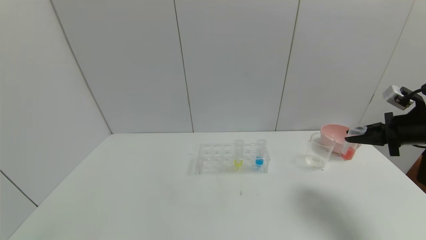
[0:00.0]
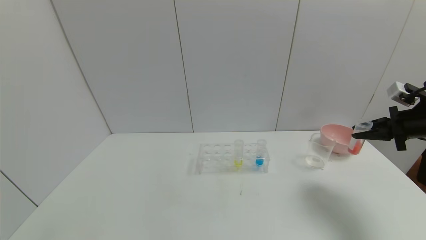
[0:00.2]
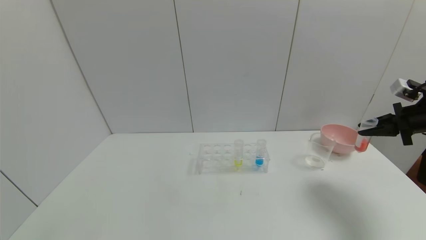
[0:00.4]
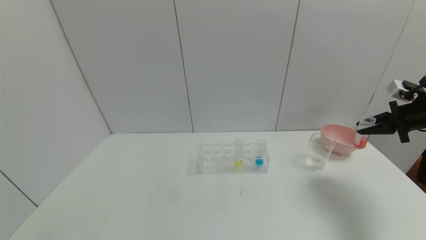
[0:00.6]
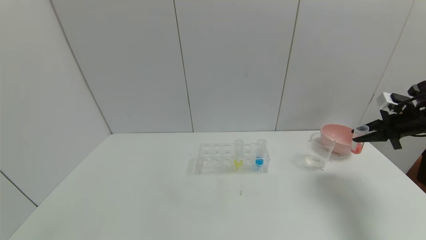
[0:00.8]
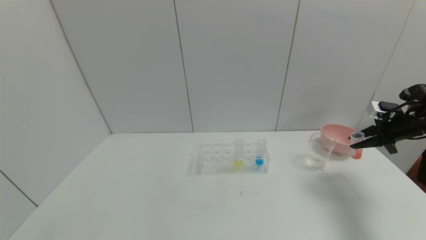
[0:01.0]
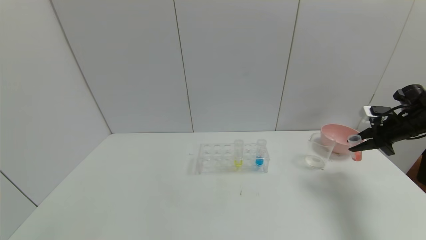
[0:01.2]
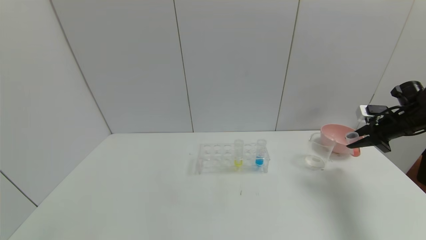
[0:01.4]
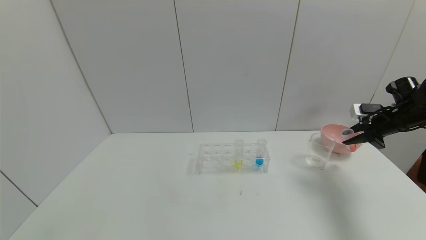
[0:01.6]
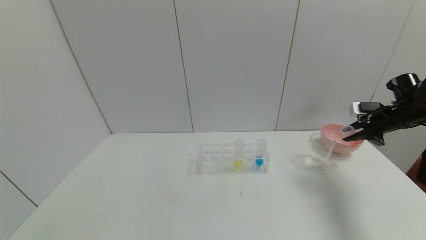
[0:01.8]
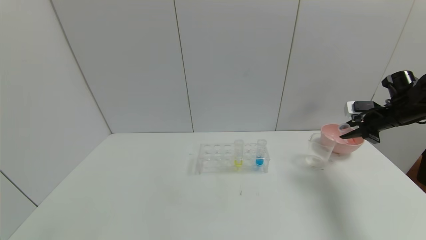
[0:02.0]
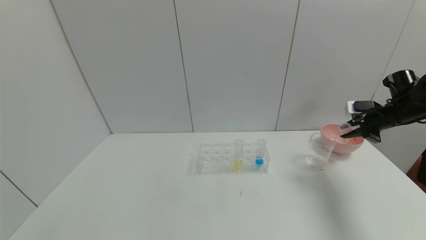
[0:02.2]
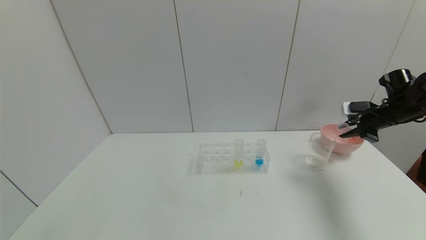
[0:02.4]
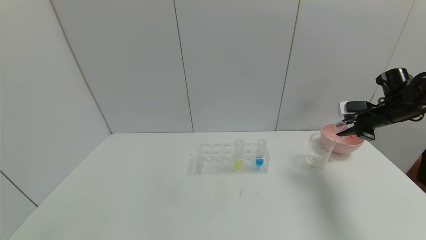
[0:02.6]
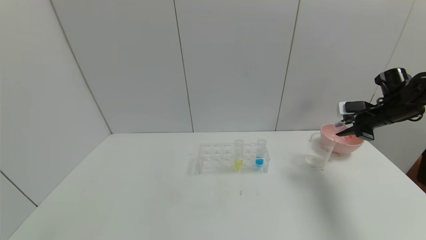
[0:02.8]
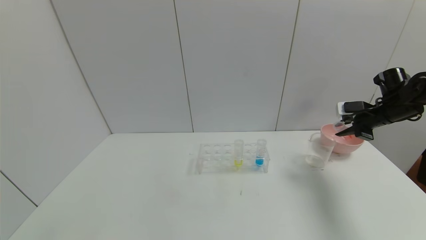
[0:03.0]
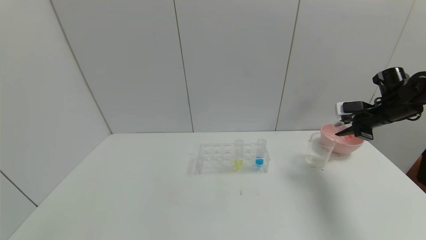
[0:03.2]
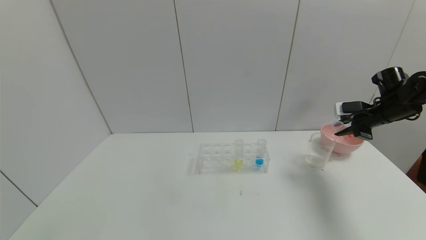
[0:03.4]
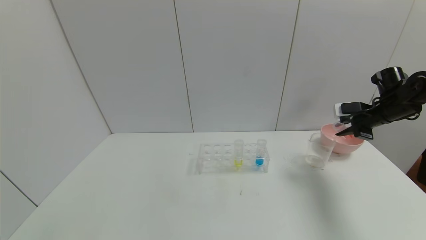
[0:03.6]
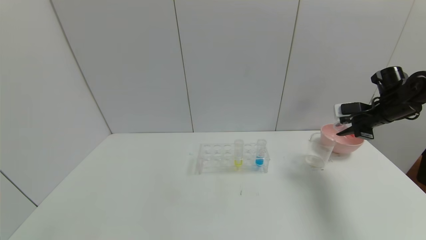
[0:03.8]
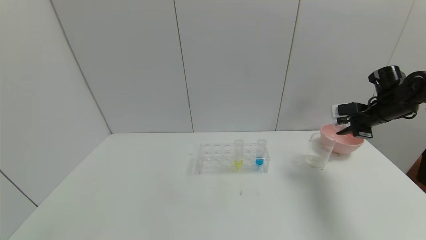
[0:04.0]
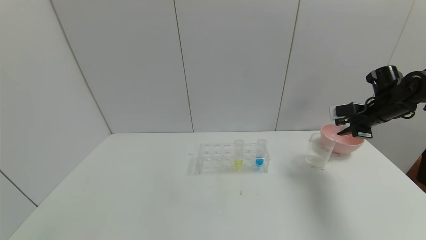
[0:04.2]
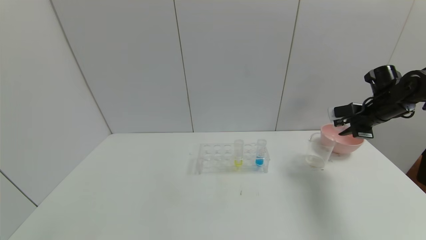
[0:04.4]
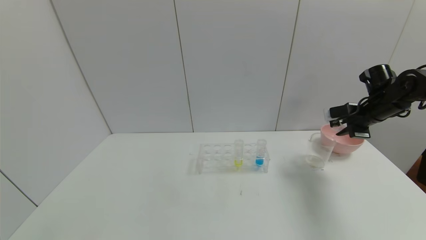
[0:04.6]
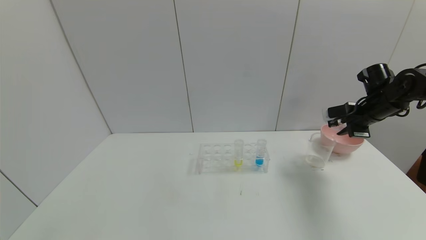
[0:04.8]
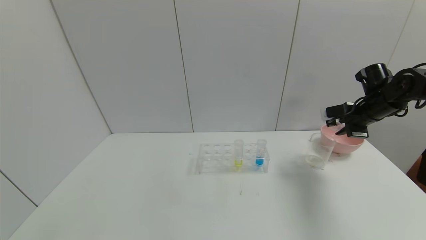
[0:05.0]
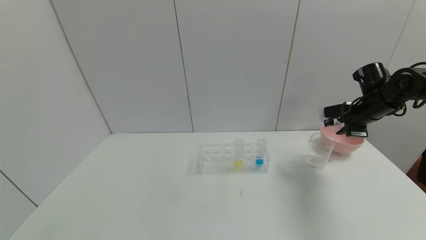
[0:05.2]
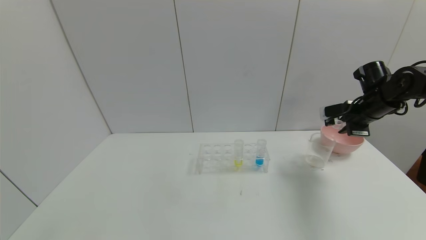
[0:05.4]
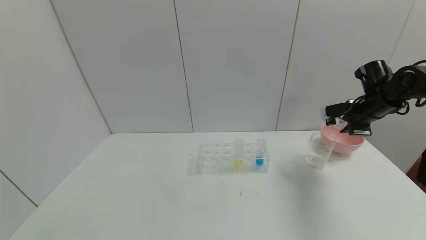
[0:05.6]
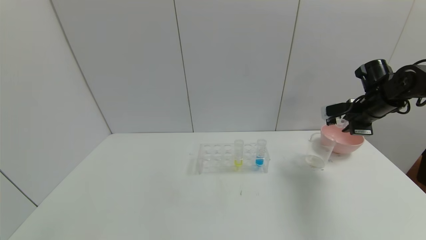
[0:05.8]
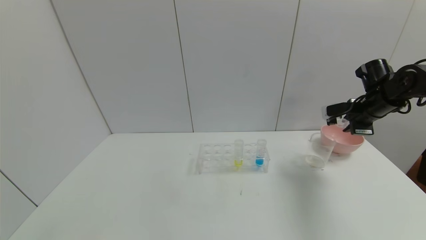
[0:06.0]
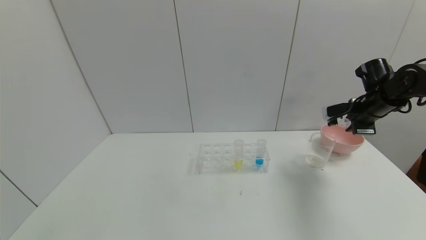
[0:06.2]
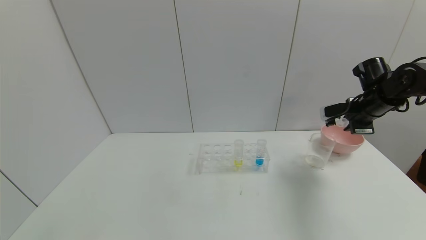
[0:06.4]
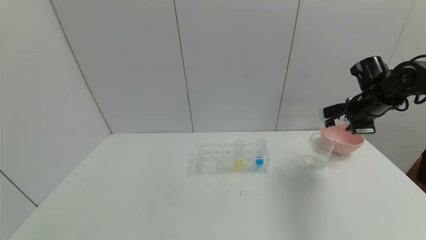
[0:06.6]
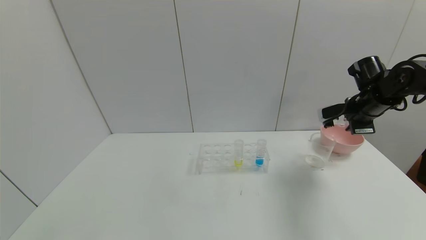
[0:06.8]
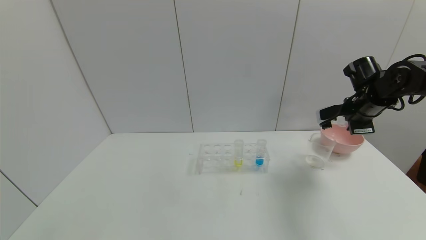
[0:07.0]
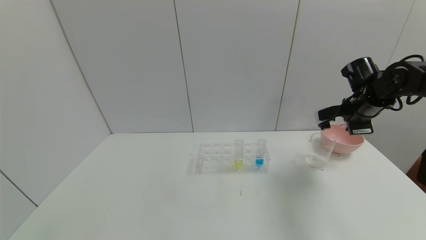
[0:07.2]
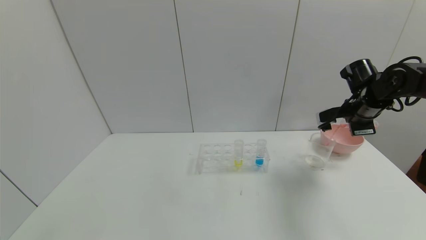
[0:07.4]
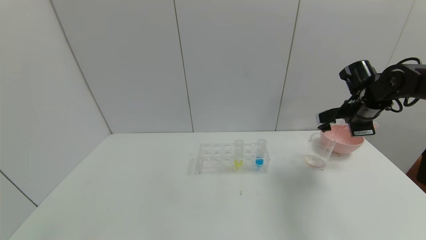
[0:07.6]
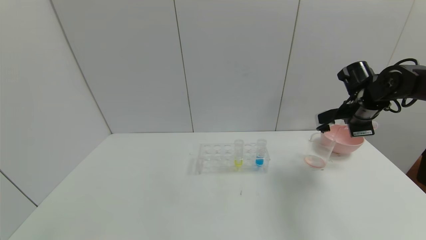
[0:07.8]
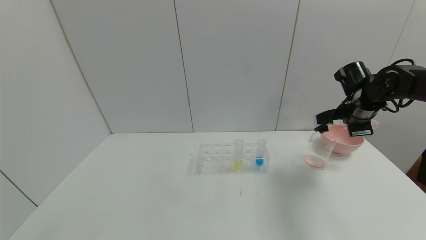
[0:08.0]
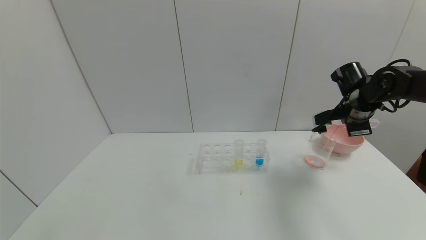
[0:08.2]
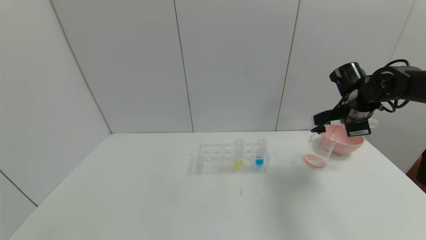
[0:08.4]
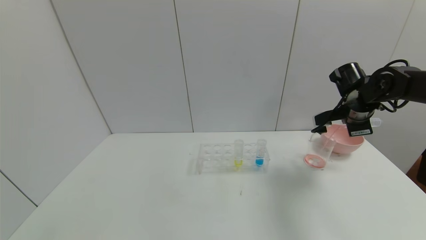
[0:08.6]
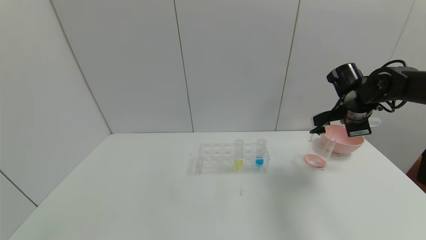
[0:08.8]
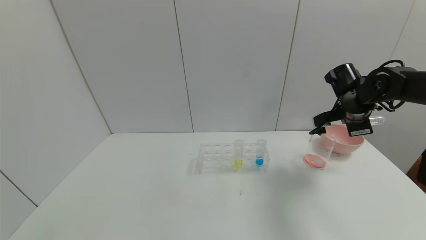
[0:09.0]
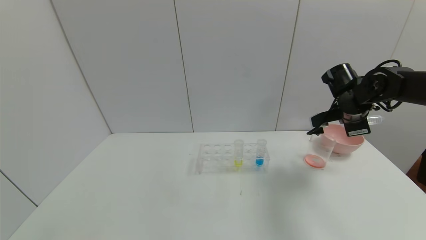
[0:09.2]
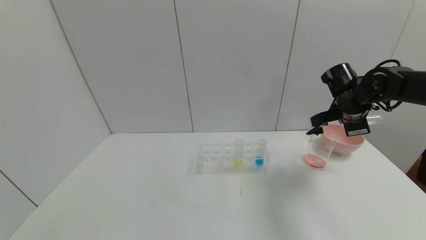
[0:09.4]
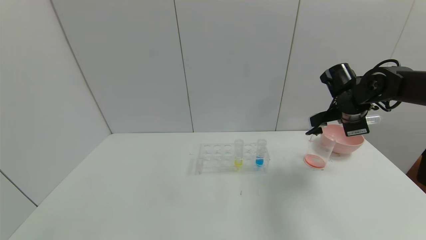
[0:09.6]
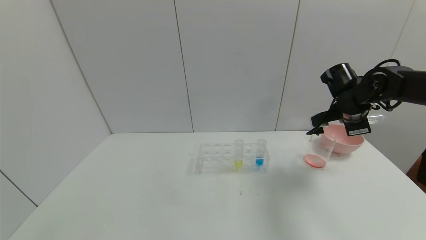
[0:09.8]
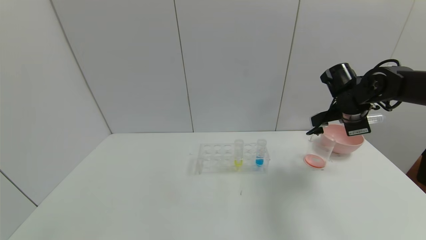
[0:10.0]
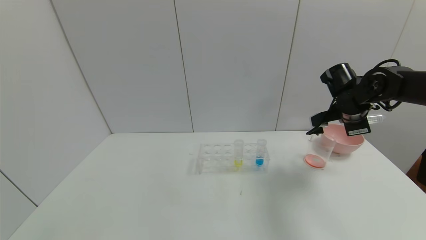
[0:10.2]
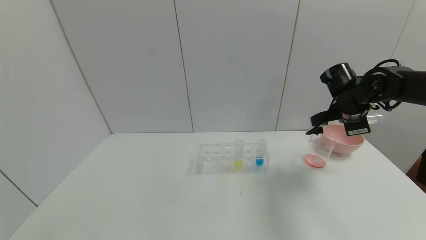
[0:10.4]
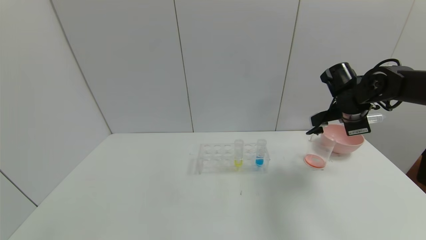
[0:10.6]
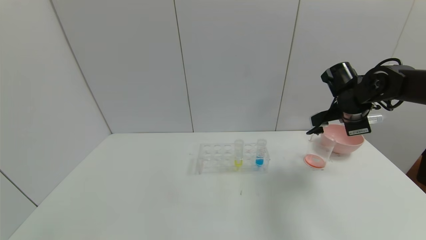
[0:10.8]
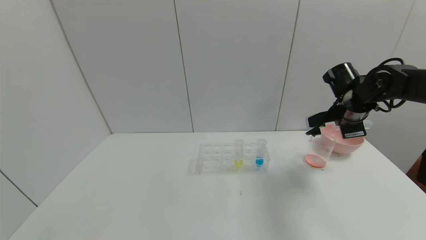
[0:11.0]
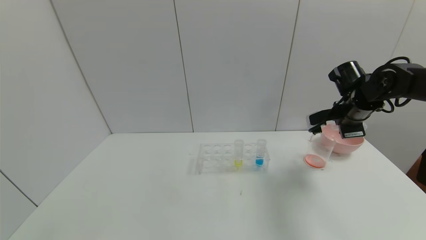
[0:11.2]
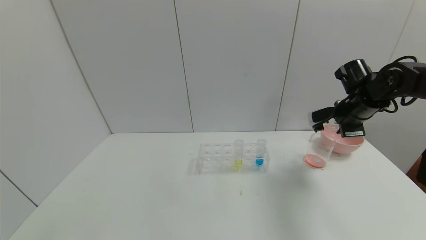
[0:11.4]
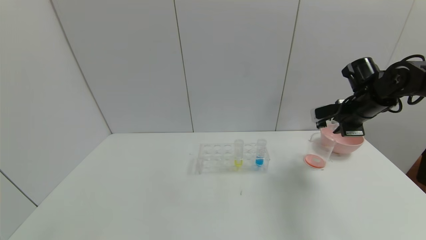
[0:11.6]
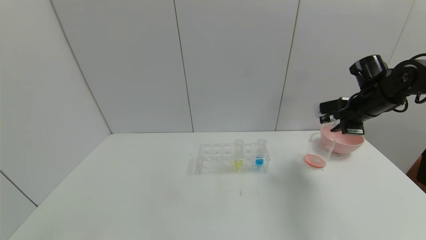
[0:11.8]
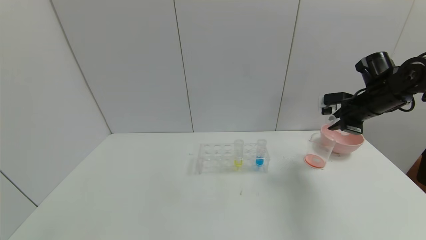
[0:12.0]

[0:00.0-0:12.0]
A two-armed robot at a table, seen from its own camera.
Task of the whole recording: pick up the test tube with yellow pigment and the test tube with red pigment by grippers and pour them into the beaker.
Step, 0:00.0 to 0:11.4: Pour the red reagent into the graduated cylinder with the right gripper.
0:00.0 to 0:01.6: The right gripper heads forward, covering approximately 10 cm.
0:01.6 to 0:03.0: The grippers stay close to where they were, moving slightly.
0:03.0 to 0:04.4: The grippers stay close to where they were, moving slightly.
0:04.4 to 0:06.0: The grippers move only a little.
0:06.0 to 0:07.6: The grippers stay close to where they were, moving slightly.
0:07.6 to 0:09.0: The grippers move only a little.
0:09.0 to 0:10.4: Neither gripper changes place.
0:10.4 to 0:12.0: The right gripper moves about 5 cm.

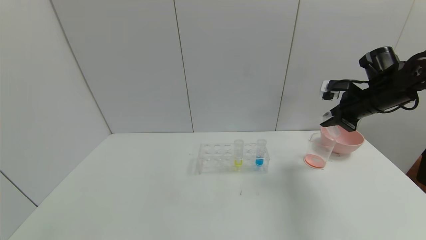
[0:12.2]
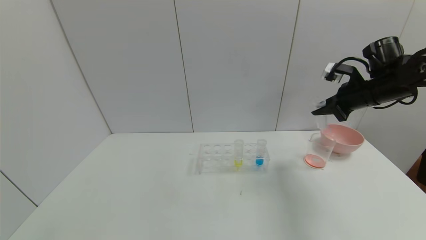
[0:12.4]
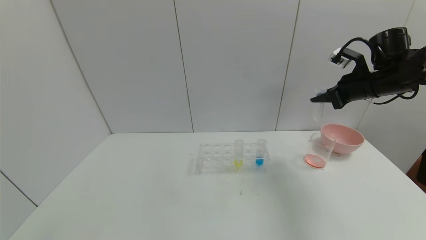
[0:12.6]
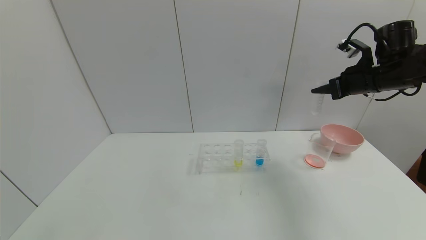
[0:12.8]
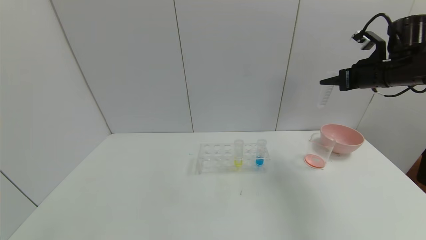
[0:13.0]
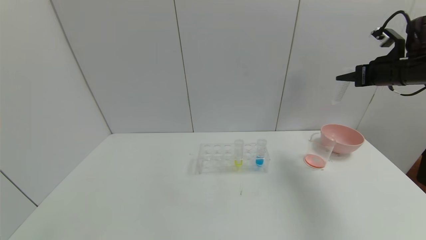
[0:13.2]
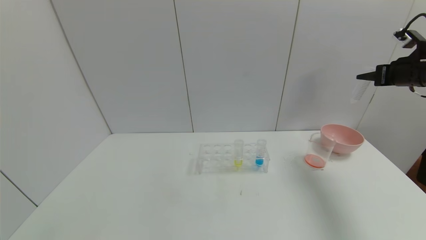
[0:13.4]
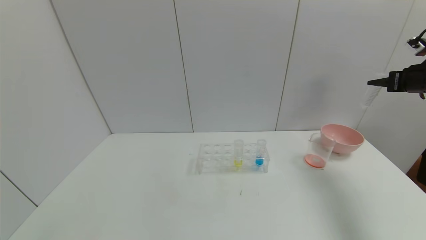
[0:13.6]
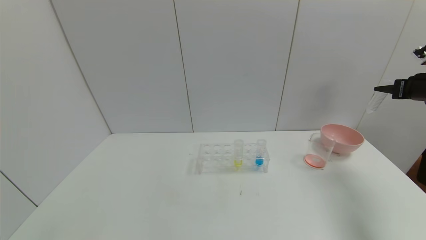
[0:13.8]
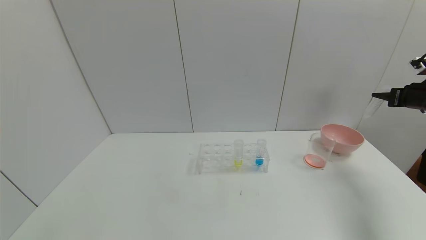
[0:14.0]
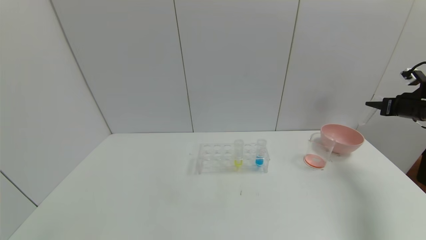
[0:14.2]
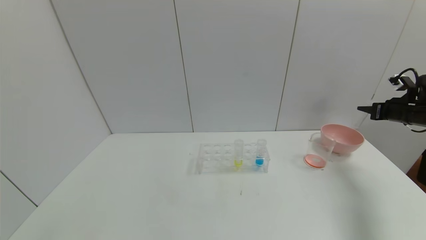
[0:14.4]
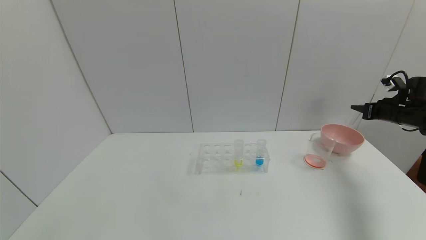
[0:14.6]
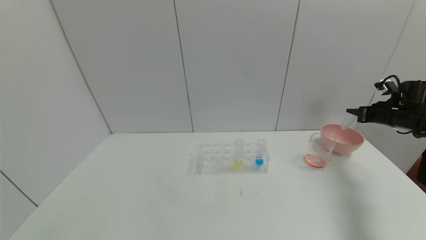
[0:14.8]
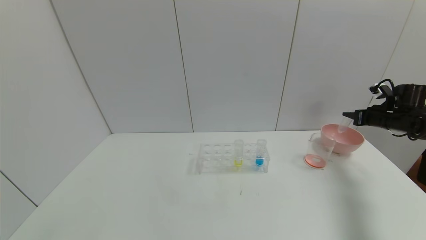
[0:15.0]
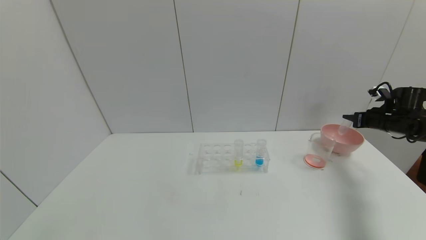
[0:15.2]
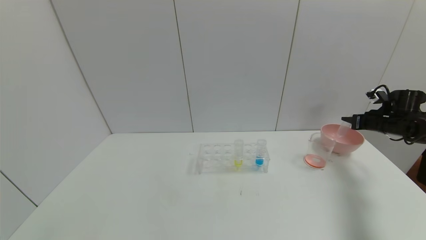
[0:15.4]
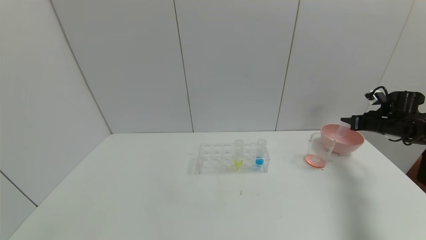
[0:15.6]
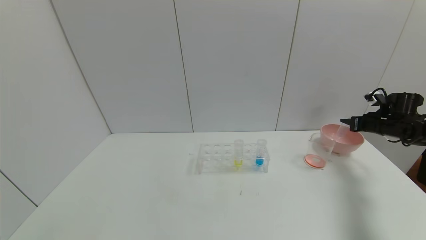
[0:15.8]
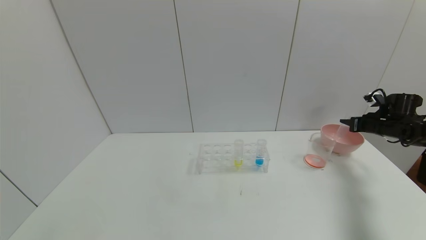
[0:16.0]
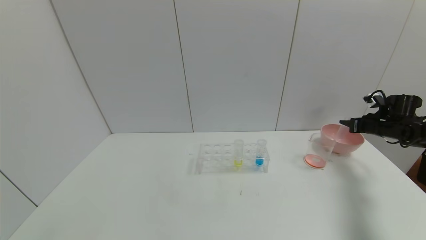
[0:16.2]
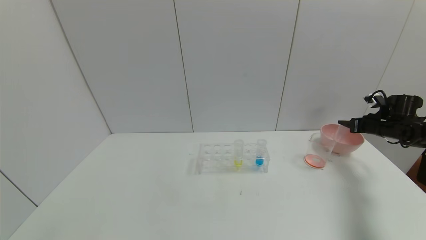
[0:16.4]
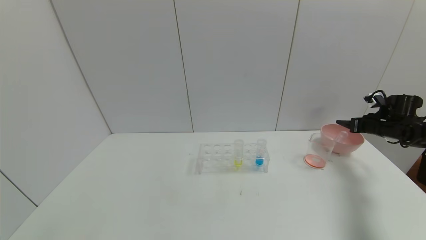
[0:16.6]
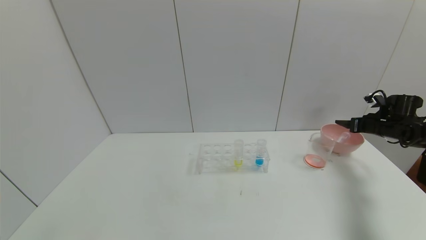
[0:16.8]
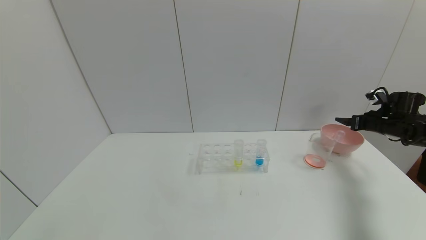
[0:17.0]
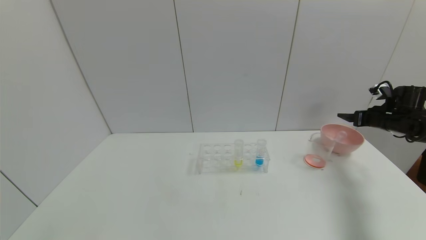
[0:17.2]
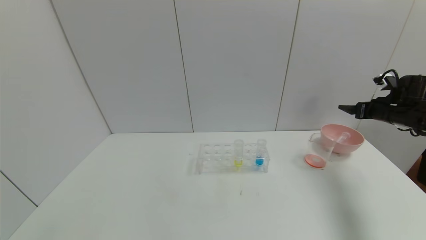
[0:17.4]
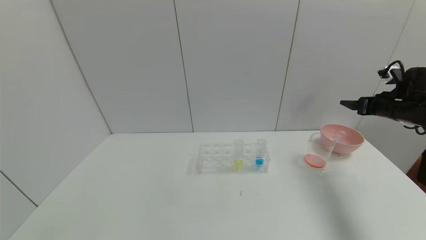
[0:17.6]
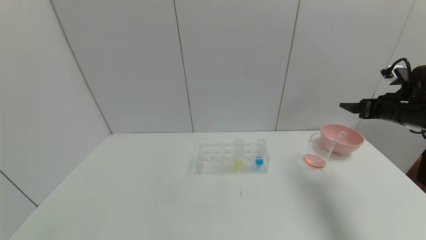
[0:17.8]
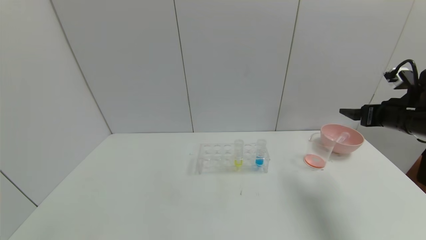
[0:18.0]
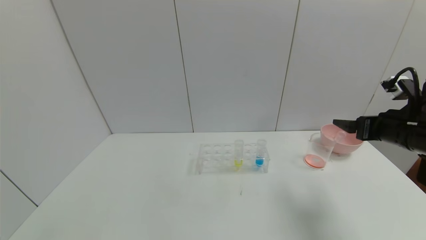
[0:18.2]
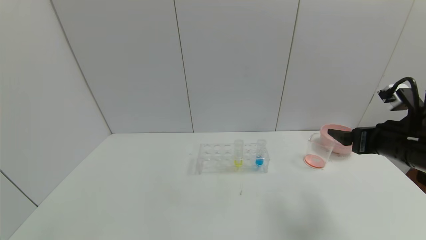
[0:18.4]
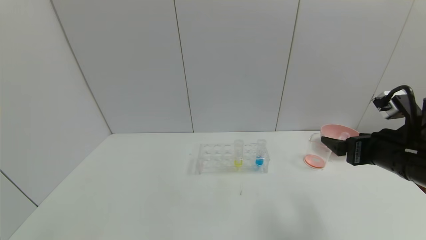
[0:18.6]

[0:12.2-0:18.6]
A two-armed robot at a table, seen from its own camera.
Task of the whole recording: pick up the test tube with yellow pigment and the test tube with red pigment by grippers and pour them into the beaker.
Step, 0:12.2 to 0:16.8: Place the test tube into the bowl with the right gripper.
0:12.2 to 0:13.8: The right gripper is displaced to the right by some 15 cm.
0:13.8 to 0:15.4: The right gripper moves downward and forward, roughly 15 cm.
0:15.4 to 0:17.0: The right gripper opens its fingers.
0:17.0 to 0:18.6: The right gripper moves backward and to the left, approximately 30 cm.
